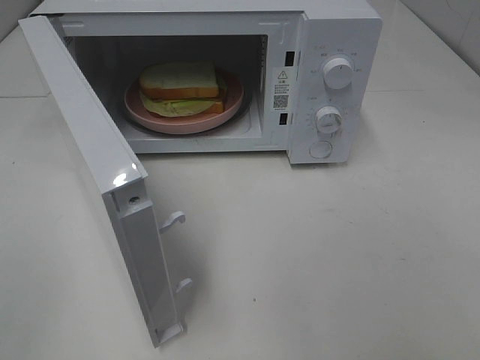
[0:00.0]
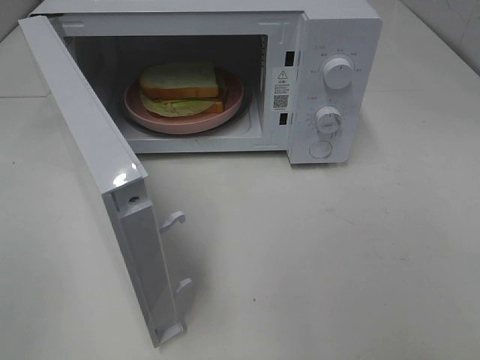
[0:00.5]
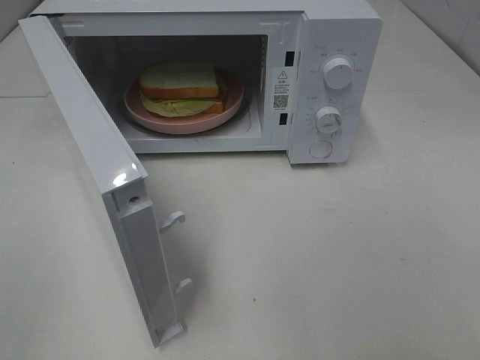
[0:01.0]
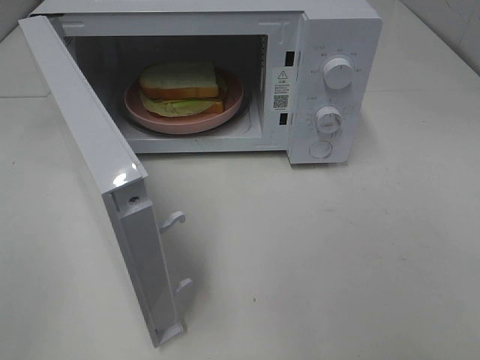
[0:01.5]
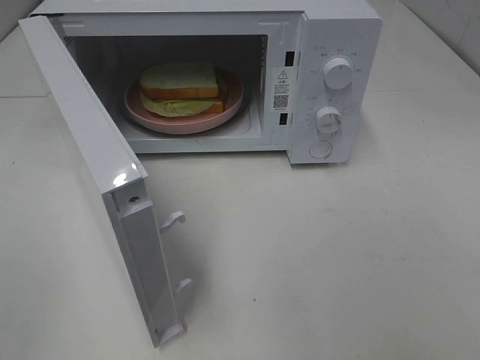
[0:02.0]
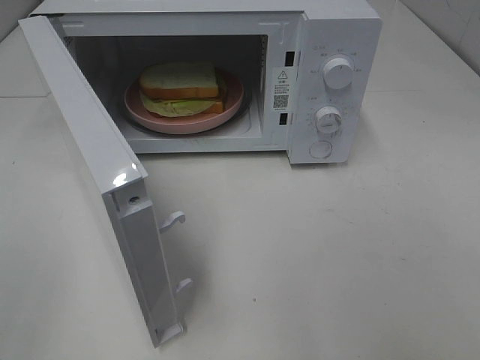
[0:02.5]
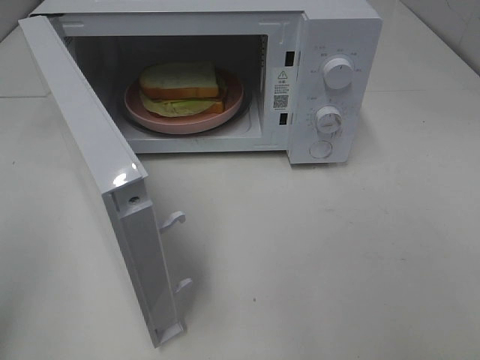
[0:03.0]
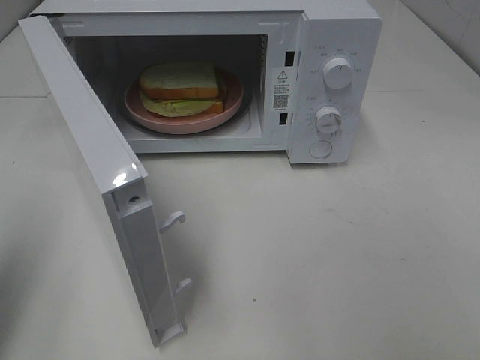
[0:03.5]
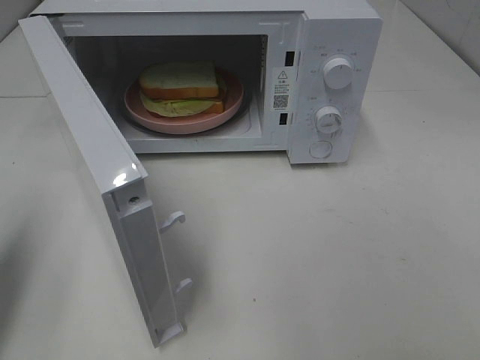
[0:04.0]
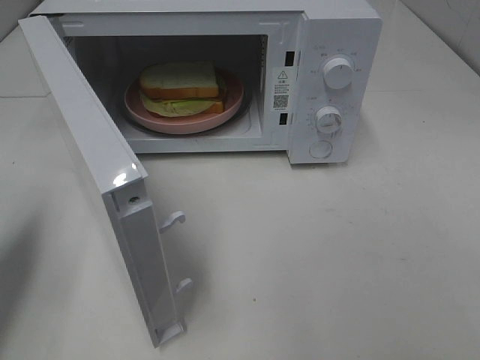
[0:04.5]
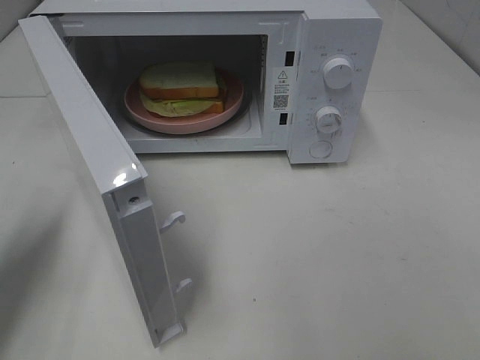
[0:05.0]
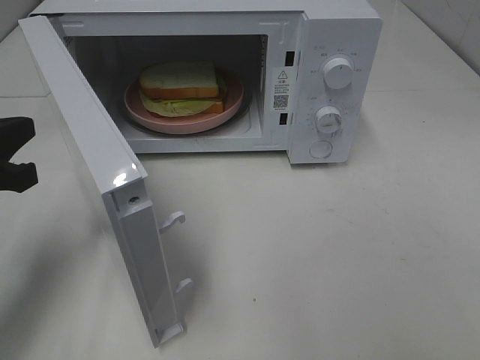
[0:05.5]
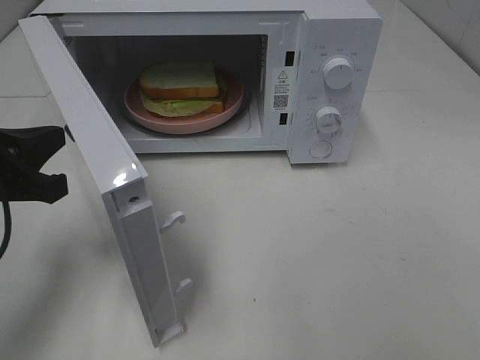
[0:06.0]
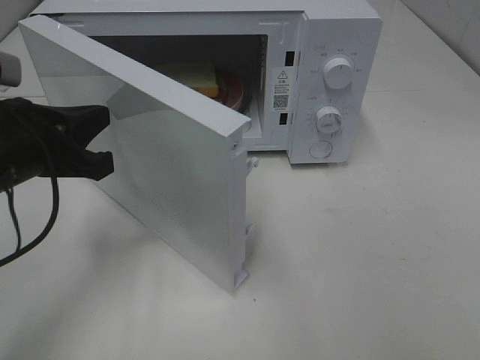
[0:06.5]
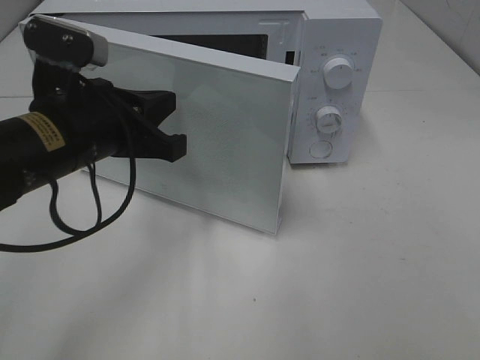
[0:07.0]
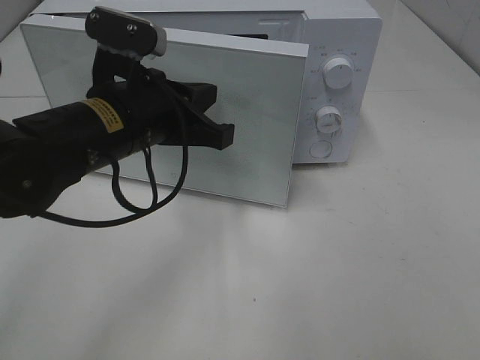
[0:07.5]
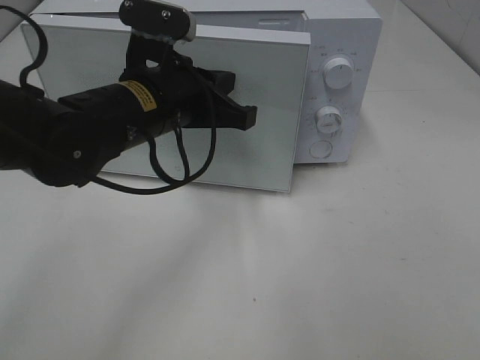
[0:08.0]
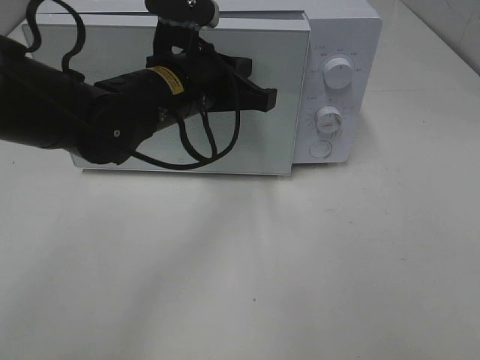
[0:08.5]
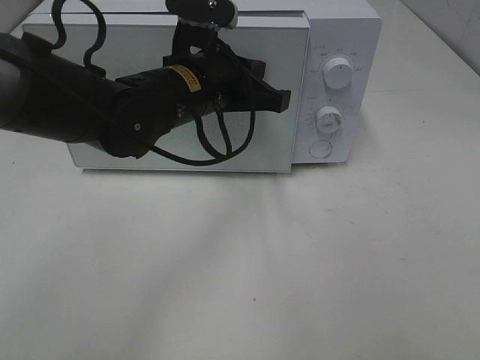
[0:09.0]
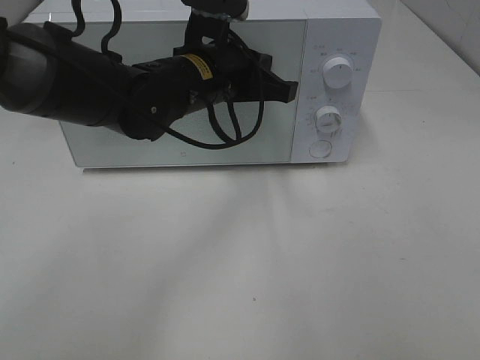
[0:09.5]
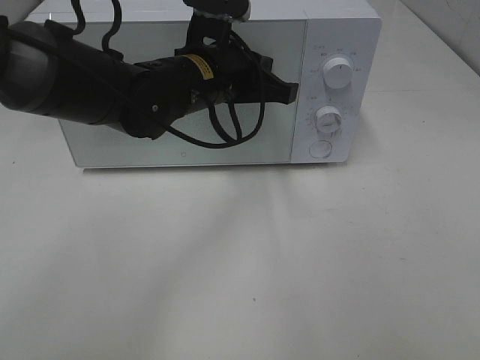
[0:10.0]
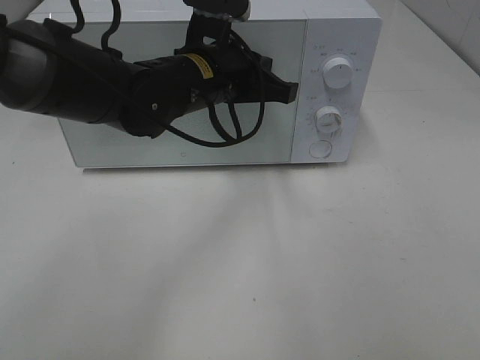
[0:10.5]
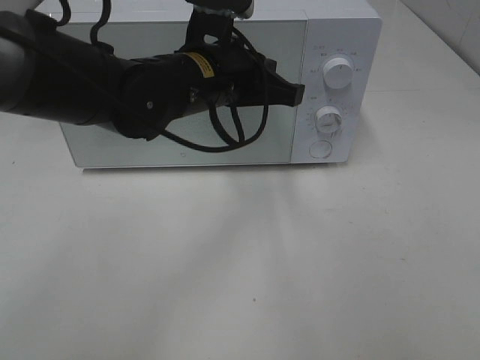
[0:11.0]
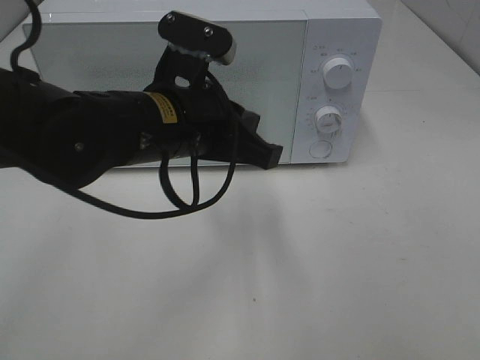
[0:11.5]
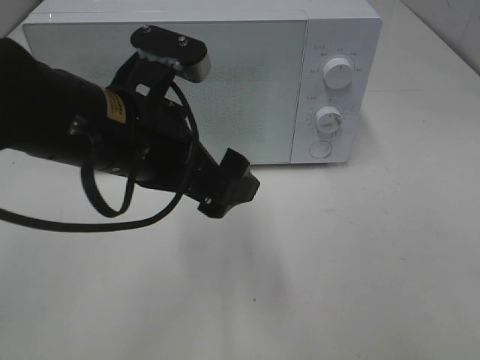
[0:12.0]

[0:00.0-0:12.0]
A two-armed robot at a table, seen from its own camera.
Task of the whole recording: Heat Sandwich.
Step, 0:00.0 to 0:10.5: Left hand: close the microwave door.
0:00.0 to 0:02.0: Both grippers stay about where they are.
0:02.0 to 0:04.0: The left gripper goes some 15 cm forward, and closes up.
0:04.0 to 0:06.0: The left gripper goes approximately 10 cm to the right, downward and forward.
0:06.0 to 0:08.0: The left gripper heads to the right and forward, covering about 20 cm.
0:08.0 to 0:10.0: The left gripper shifts some 5 cm forward.
0:10.0 to 0:12.0: The left gripper travels backward and to the left by some 15 cm, and opens.

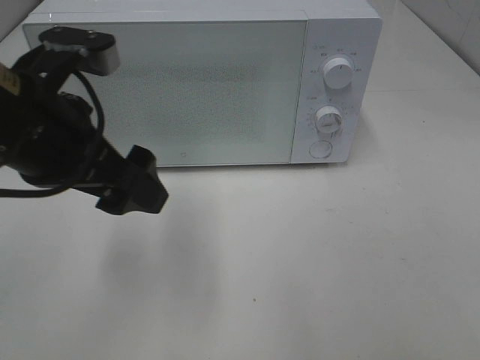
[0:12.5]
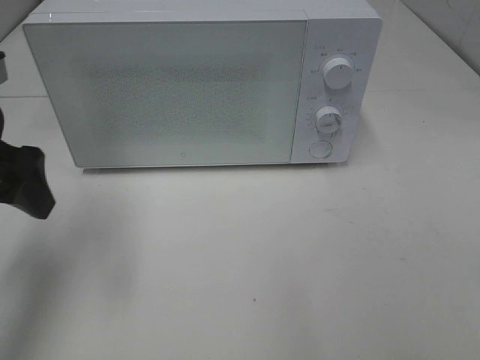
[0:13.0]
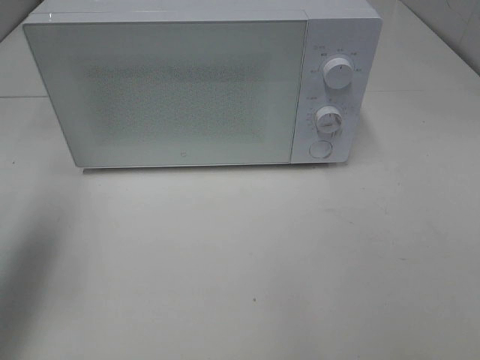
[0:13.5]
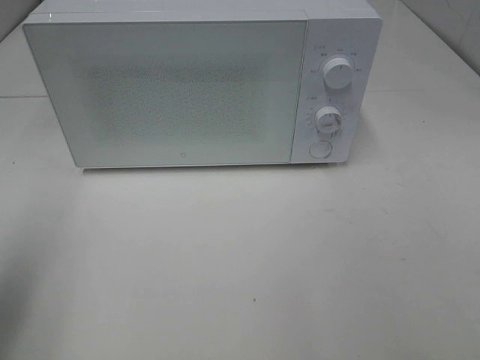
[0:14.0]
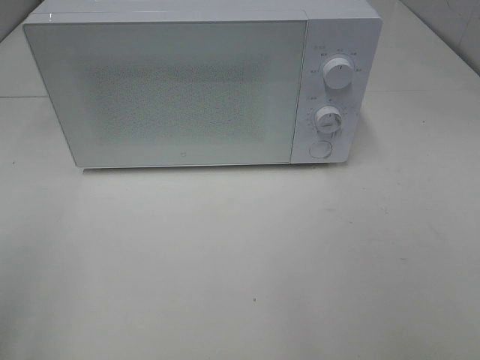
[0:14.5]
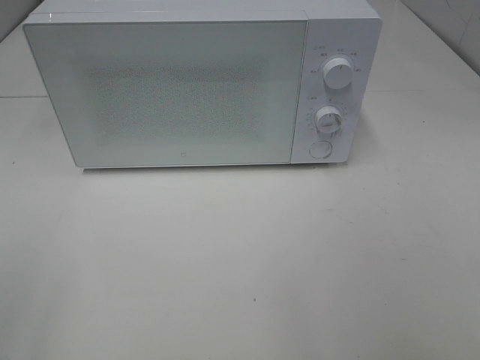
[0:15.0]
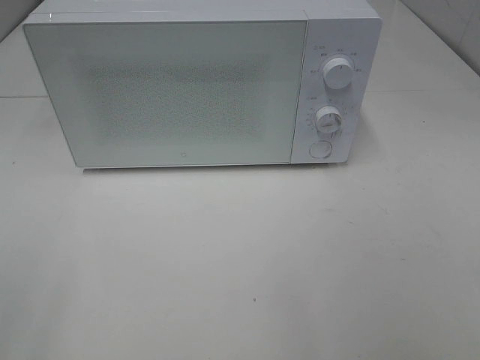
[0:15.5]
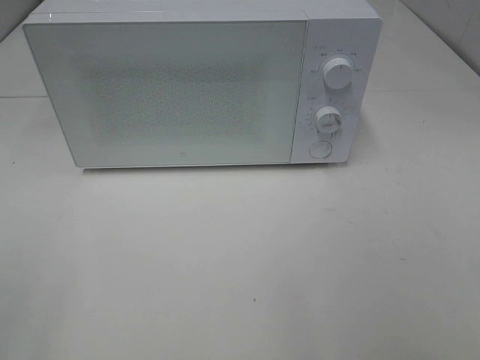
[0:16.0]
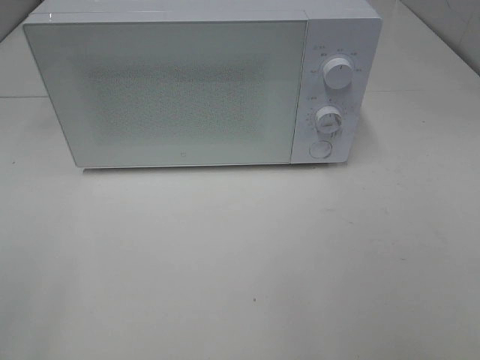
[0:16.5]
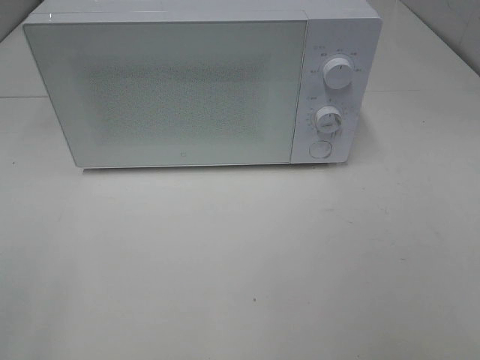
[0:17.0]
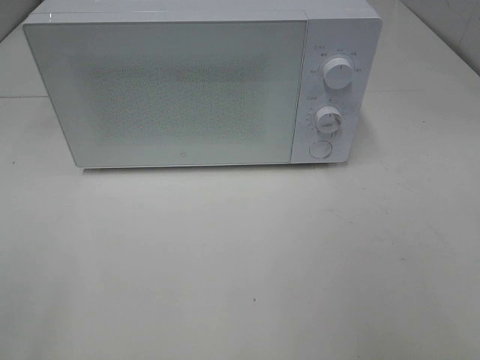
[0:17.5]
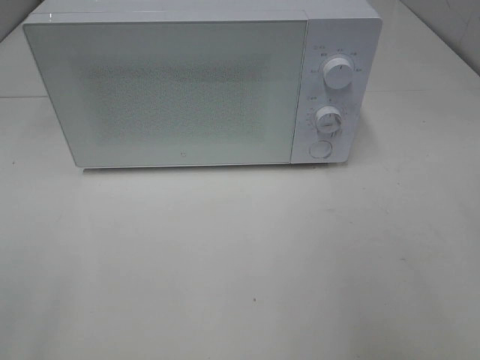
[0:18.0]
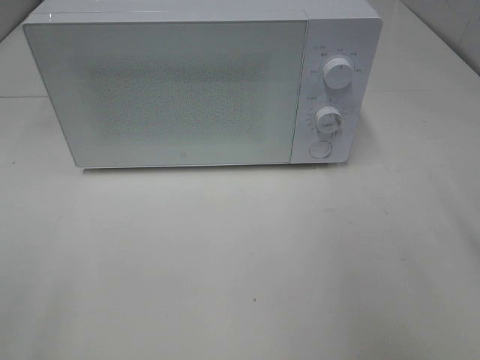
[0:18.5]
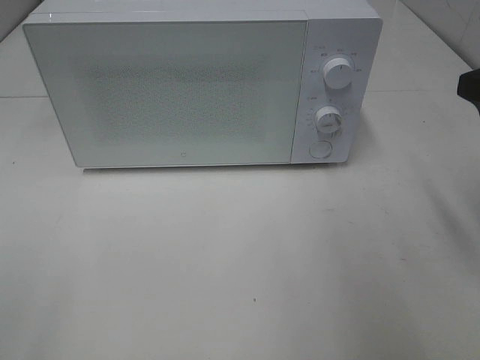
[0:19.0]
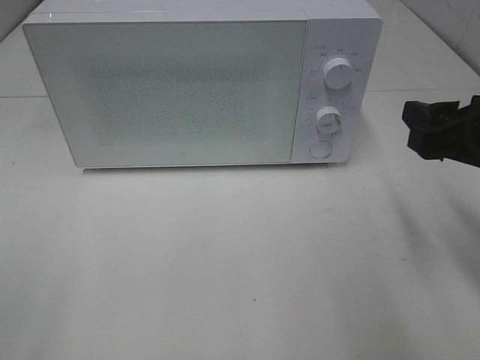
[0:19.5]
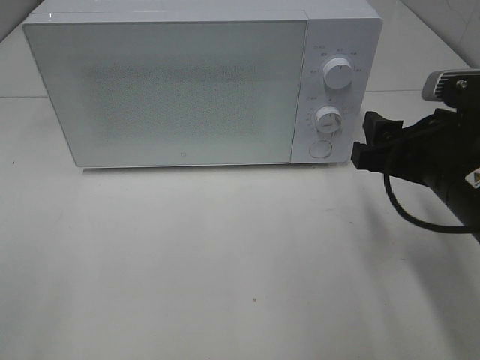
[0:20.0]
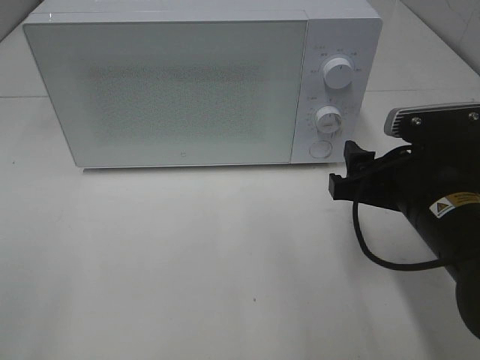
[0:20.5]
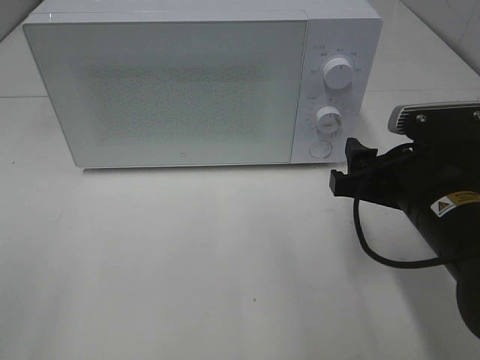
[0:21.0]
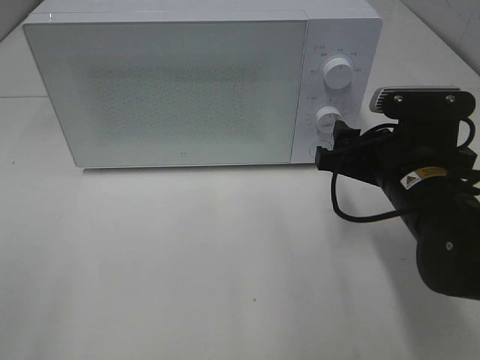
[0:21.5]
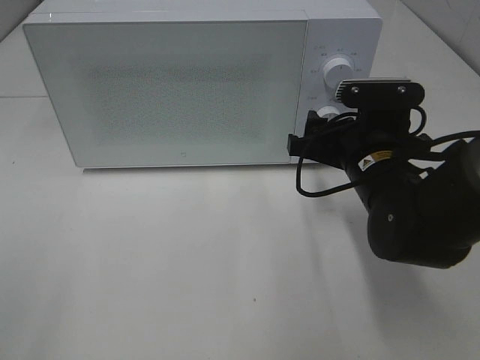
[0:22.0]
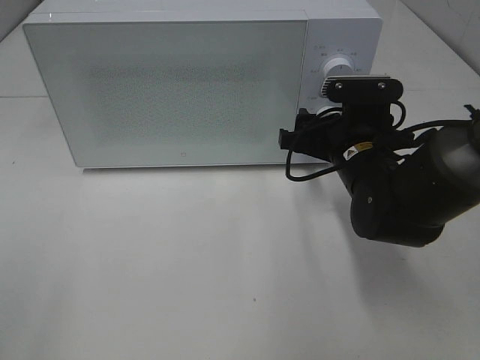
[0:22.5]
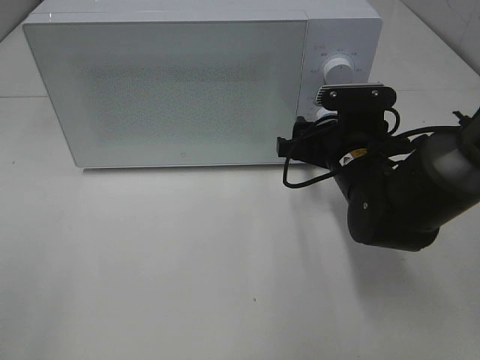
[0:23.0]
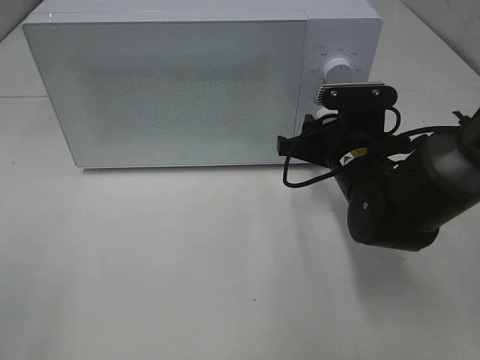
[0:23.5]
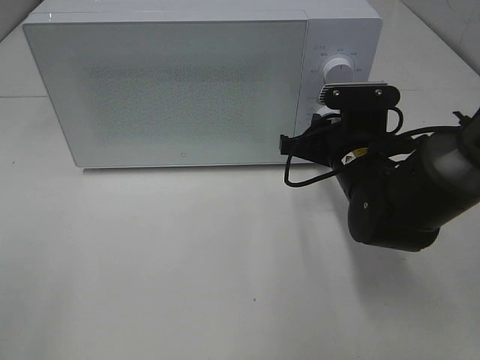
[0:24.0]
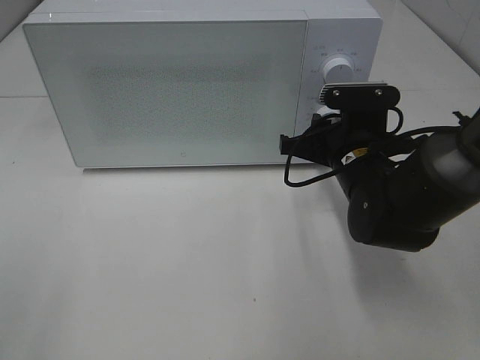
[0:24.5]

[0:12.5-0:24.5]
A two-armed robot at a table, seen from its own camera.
Task of the whole recording: Heat Sandwich.
0:12.5 to 0:14.5: The left gripper goes about 25 cm to the left and backward.
0:18.5 to 0:20.5: The right gripper shifts approximately 15 cm downward and to the left.
0:20.5 to 0:22.5: The right gripper heads forward, covering about 10 cm.
0:22.5 to 0:24.5: The right gripper closes.

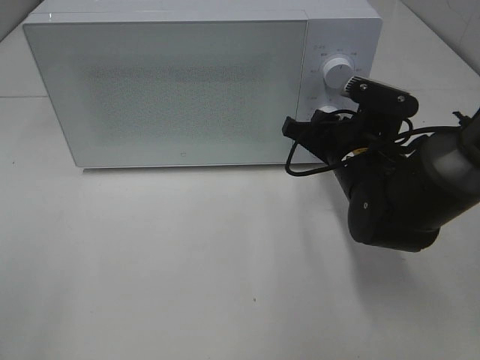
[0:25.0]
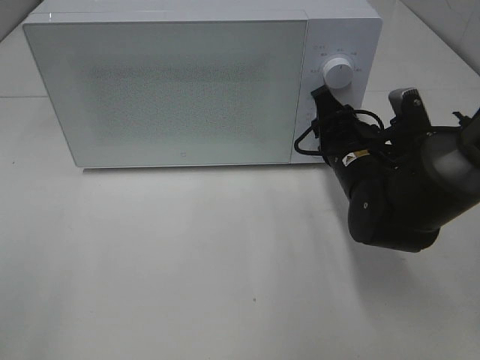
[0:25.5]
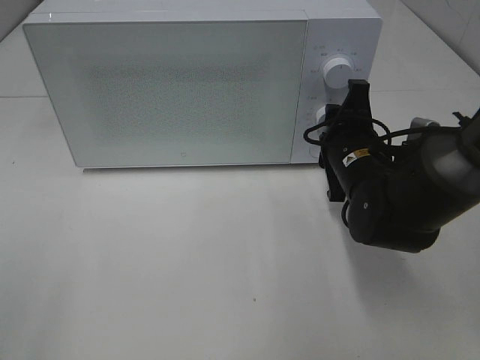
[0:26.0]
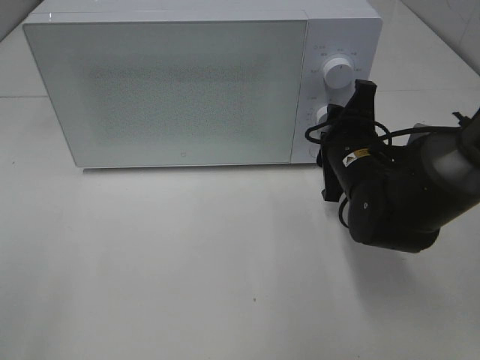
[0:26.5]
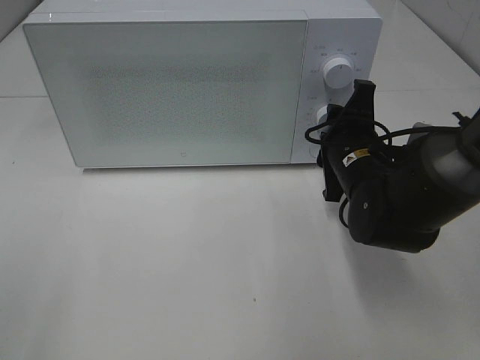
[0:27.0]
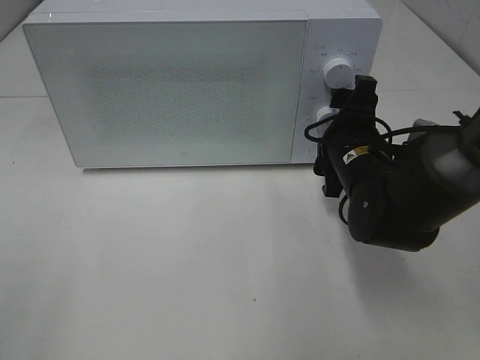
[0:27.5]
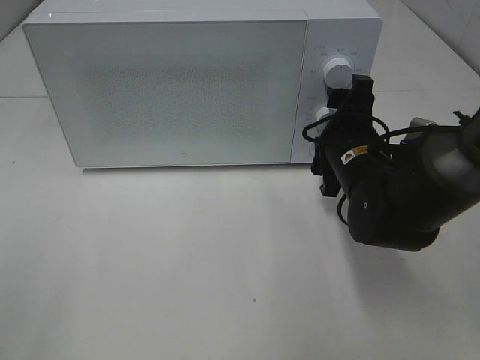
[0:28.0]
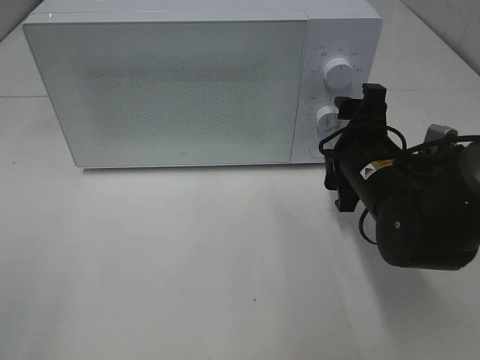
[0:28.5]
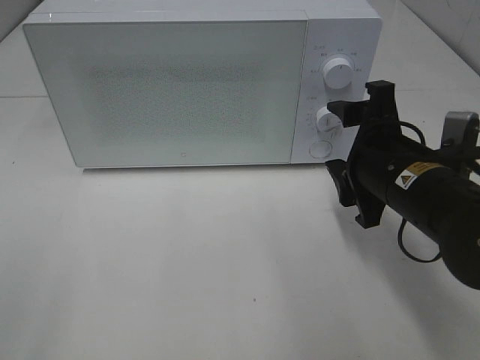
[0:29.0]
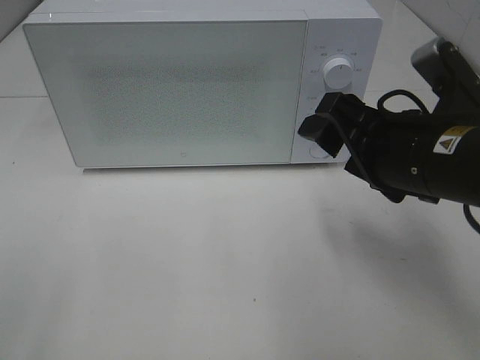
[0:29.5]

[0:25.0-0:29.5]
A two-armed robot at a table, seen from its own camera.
Task of the whole recording: Heat Sandwich.
Step, 0:25.0 to 0:28.0: Right hand: twist timer button.
0:27.0 to 0:29.5: The right gripper is displaced backward and upward by roughly 15 cm, and opens up.
